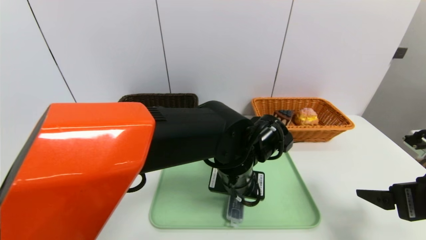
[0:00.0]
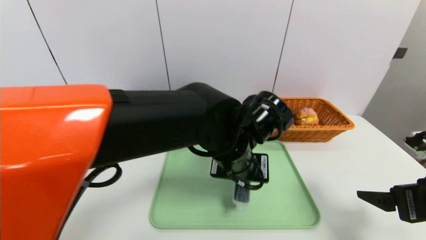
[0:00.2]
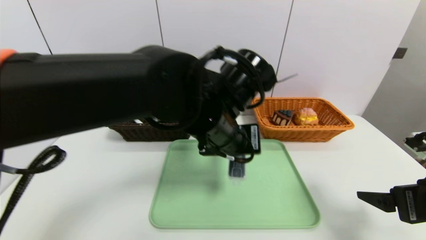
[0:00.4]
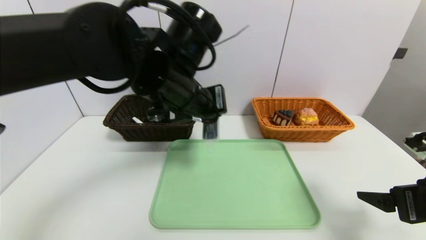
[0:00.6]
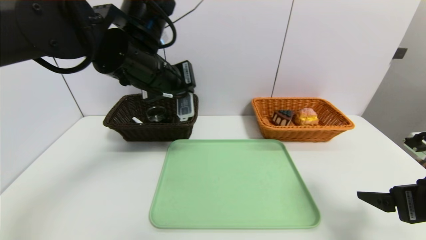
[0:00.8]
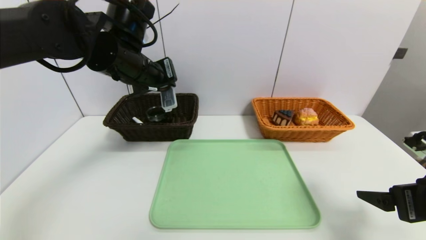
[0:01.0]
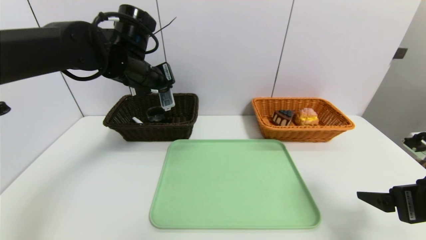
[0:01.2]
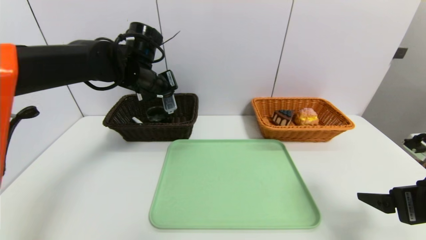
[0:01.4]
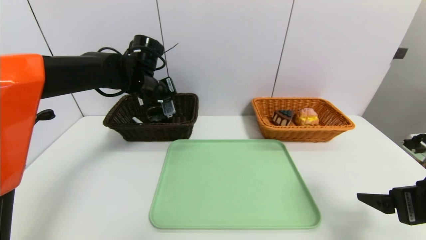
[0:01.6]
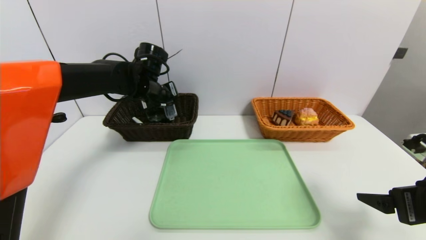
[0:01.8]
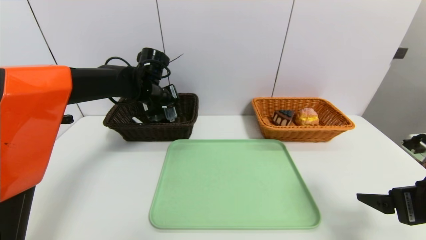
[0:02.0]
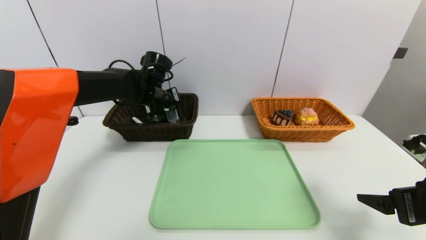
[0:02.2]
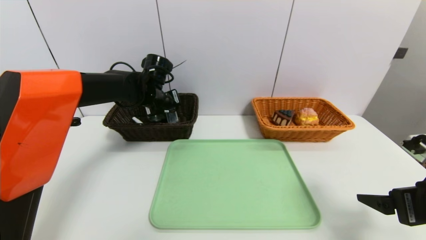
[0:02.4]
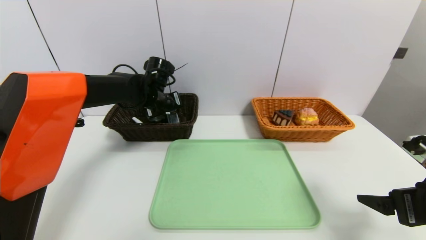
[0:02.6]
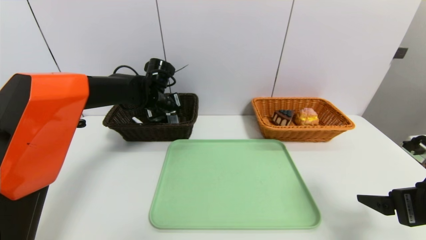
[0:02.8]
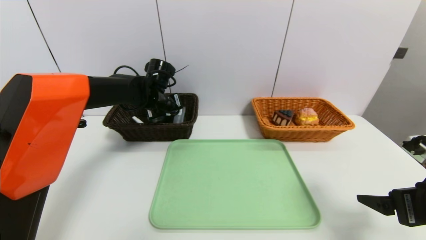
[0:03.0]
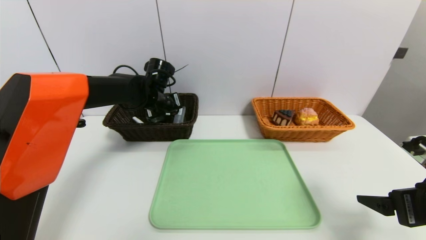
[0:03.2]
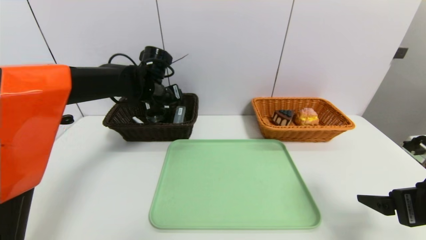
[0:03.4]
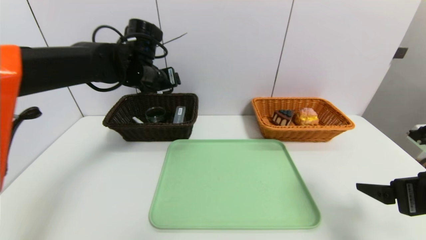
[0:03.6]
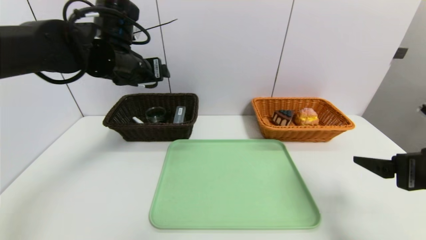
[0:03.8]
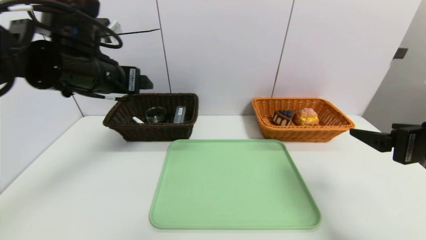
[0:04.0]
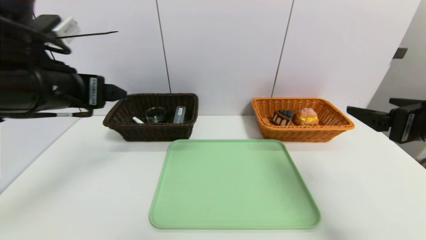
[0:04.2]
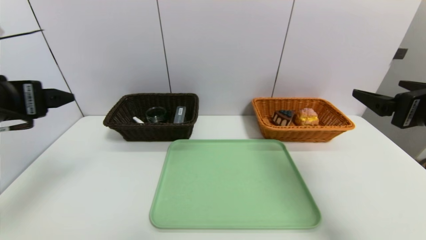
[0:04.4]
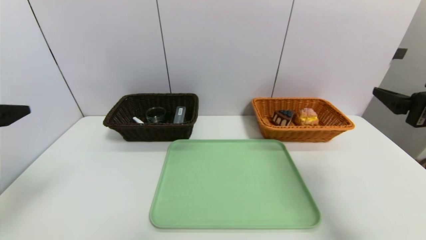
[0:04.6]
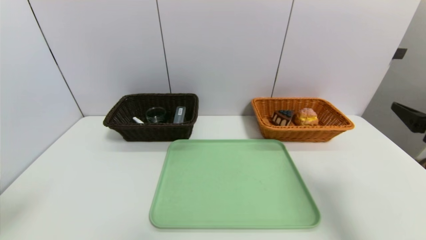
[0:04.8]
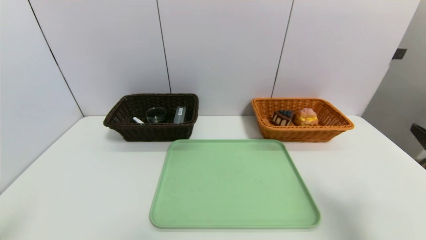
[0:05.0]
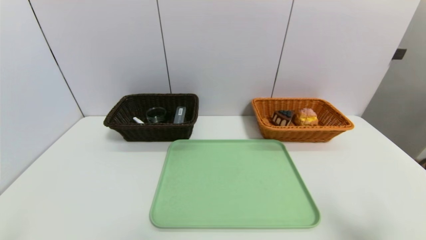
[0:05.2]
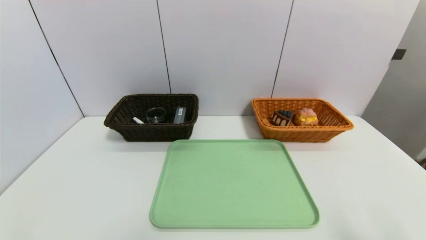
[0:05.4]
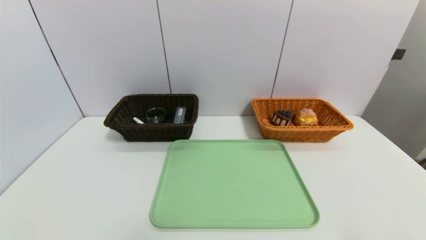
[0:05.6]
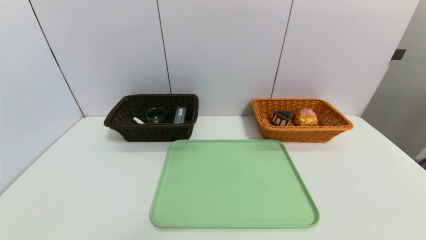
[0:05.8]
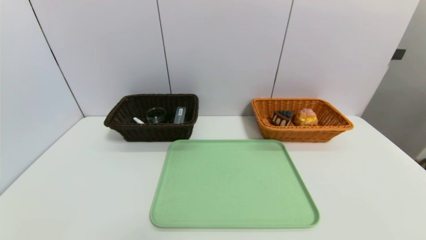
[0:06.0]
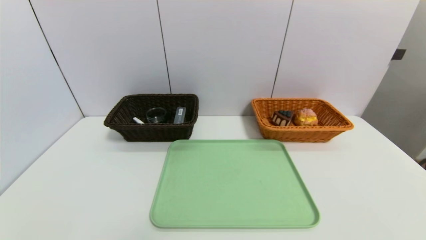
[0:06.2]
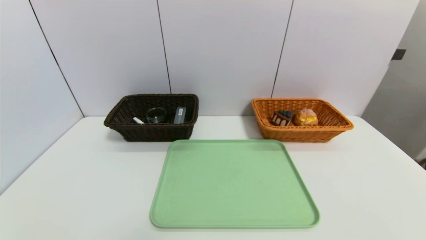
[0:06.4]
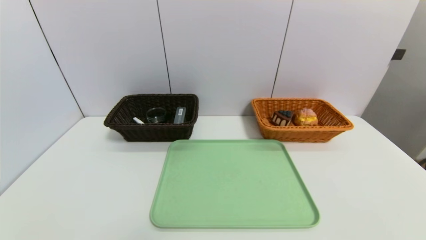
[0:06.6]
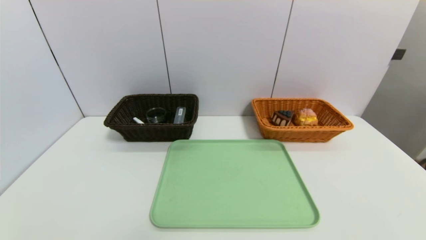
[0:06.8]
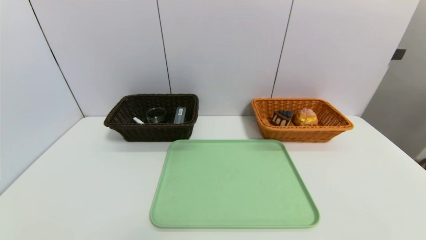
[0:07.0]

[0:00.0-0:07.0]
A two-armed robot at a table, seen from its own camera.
Task of the whole recording: place the food in the right basket with the right gripper, and place the non food items in the left basket with the left gripper.
Step, 0:00.0 to 0:03.4: Grasp the compass and put it in the left basket.
0:00.0 to 0:01.4: The left gripper moves to the left, forward and upward, about 25 cm.
0:01.4 to 0:02.8: The left gripper heads downward, covering approximately 5 cm.
0:02.8 to 0:04.2: The right gripper is displaced upward by approximately 10 cm; the left gripper travels backward and upward by about 25 cm, and opens its fingers.
0:04.2 to 0:05.6: The two grippers go about 25 cm backward and downward.

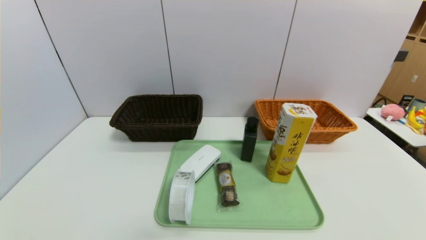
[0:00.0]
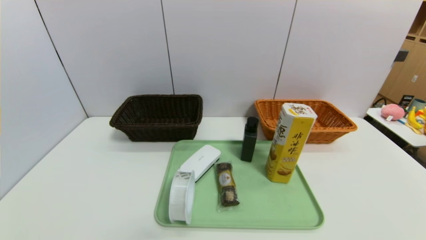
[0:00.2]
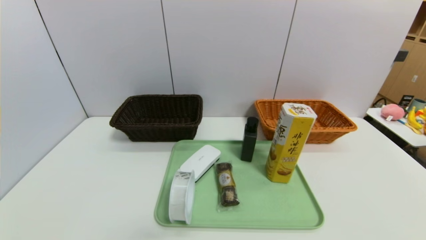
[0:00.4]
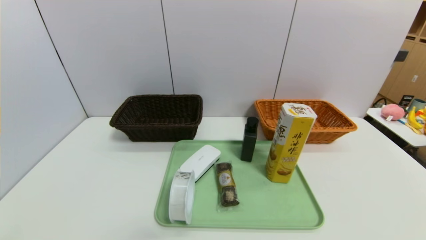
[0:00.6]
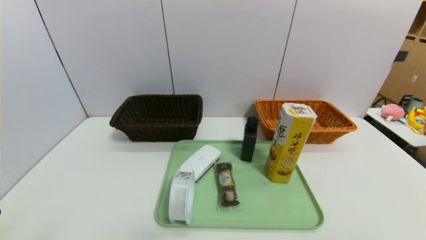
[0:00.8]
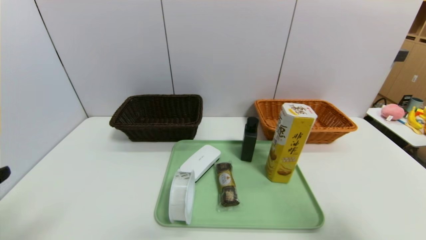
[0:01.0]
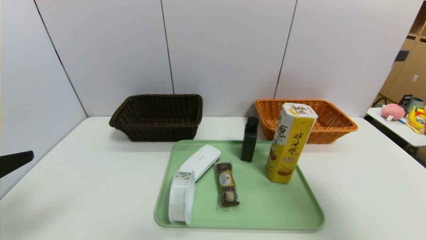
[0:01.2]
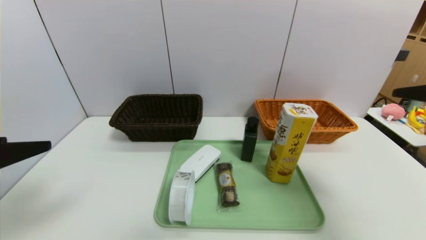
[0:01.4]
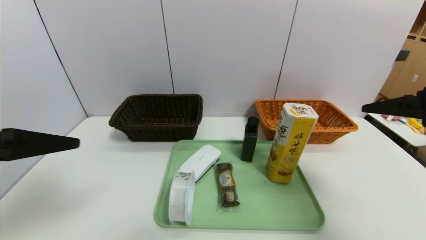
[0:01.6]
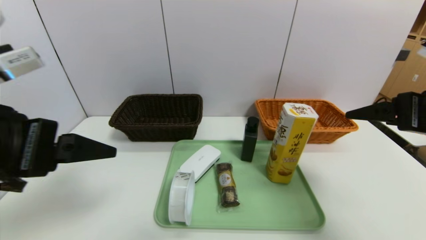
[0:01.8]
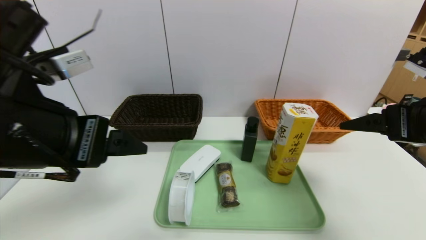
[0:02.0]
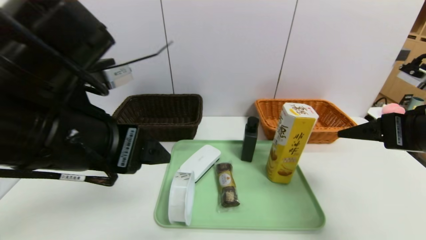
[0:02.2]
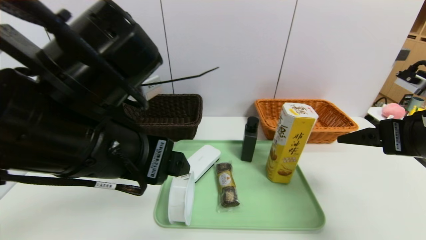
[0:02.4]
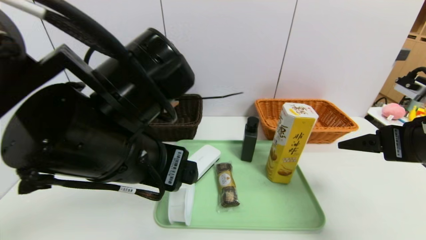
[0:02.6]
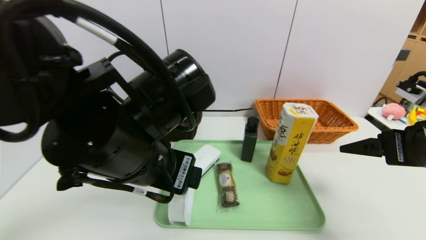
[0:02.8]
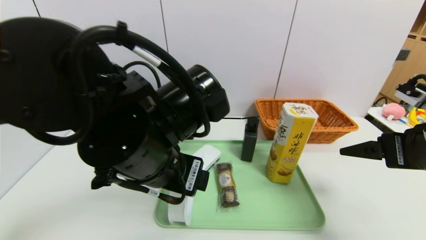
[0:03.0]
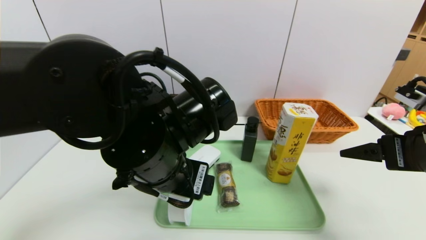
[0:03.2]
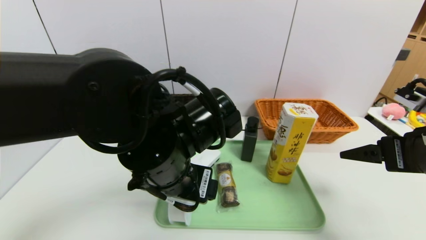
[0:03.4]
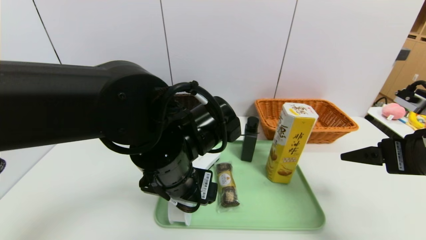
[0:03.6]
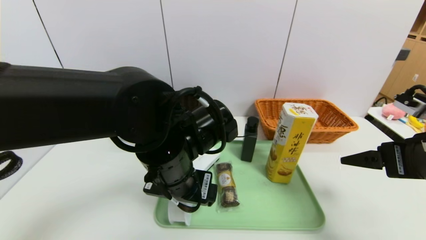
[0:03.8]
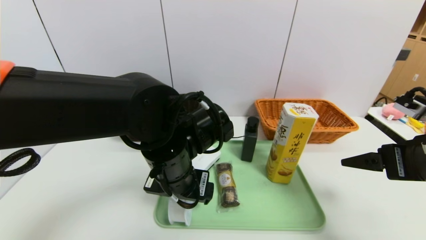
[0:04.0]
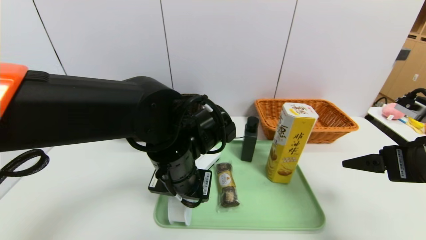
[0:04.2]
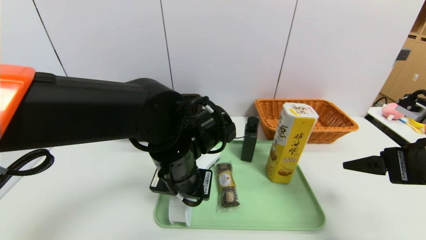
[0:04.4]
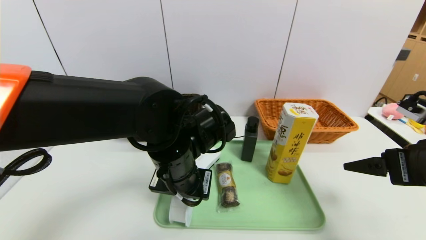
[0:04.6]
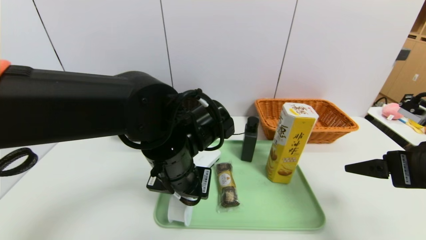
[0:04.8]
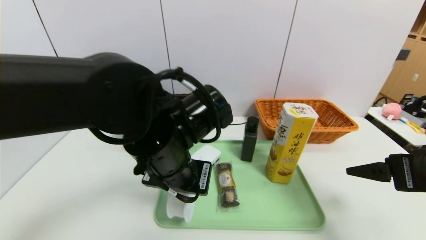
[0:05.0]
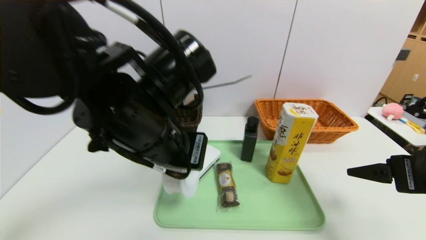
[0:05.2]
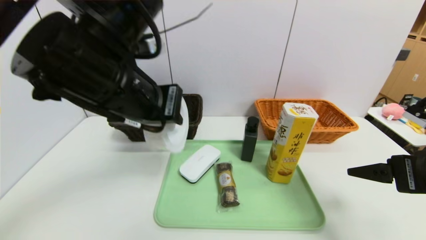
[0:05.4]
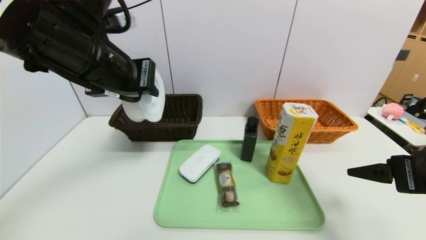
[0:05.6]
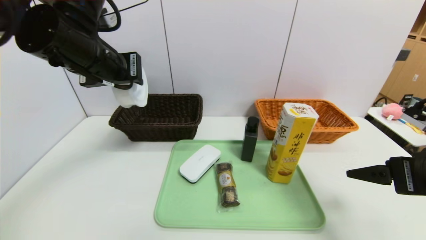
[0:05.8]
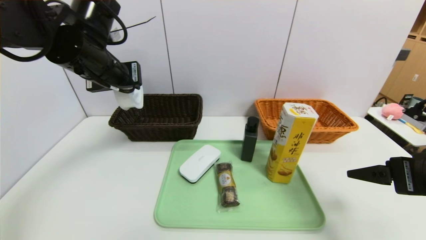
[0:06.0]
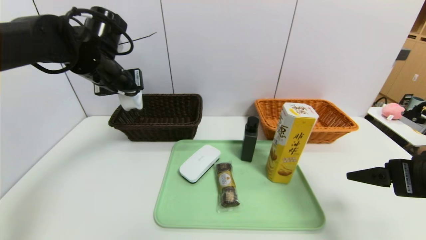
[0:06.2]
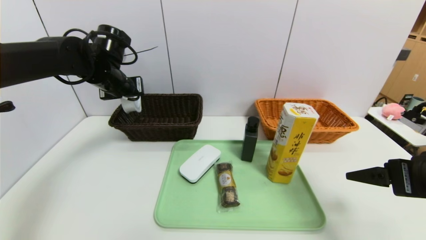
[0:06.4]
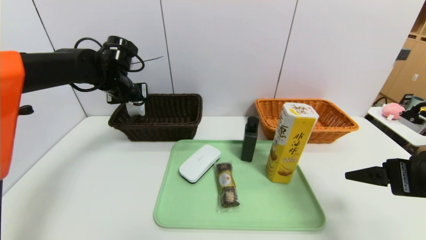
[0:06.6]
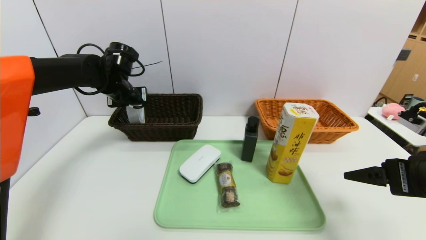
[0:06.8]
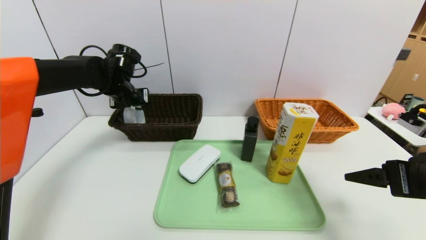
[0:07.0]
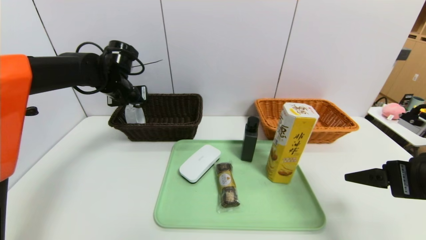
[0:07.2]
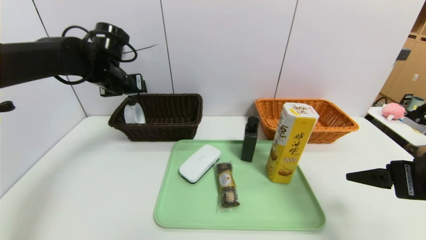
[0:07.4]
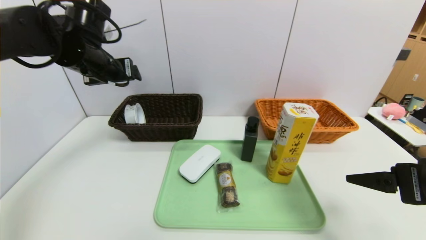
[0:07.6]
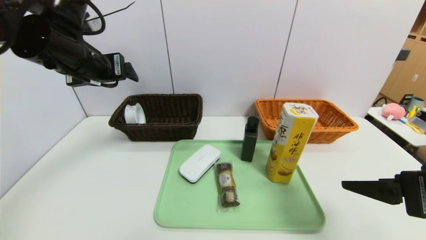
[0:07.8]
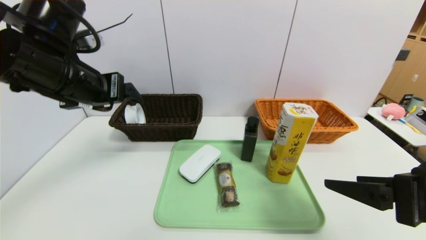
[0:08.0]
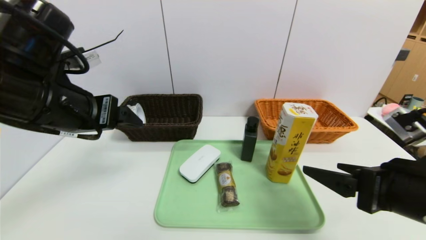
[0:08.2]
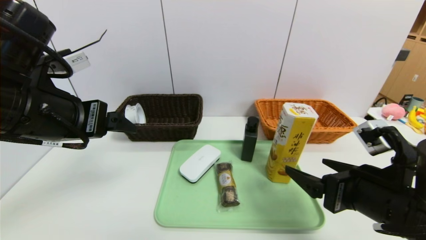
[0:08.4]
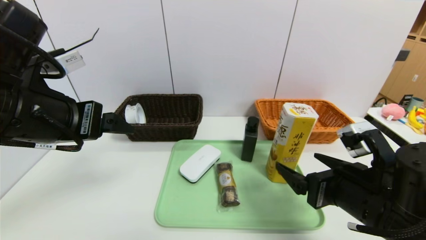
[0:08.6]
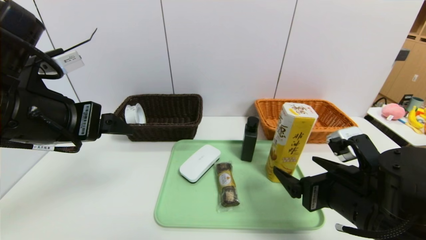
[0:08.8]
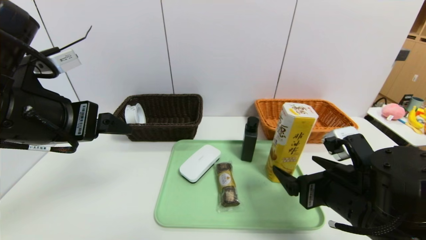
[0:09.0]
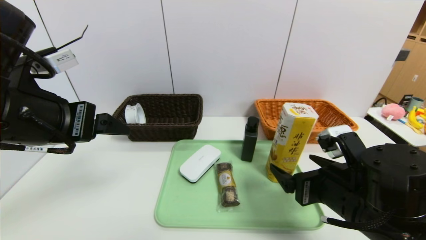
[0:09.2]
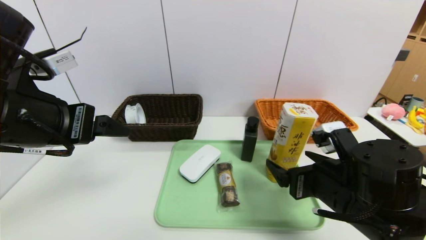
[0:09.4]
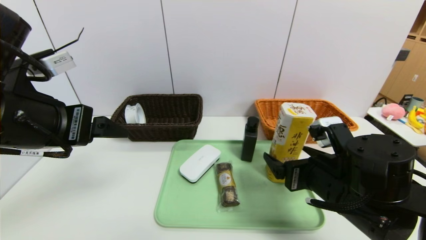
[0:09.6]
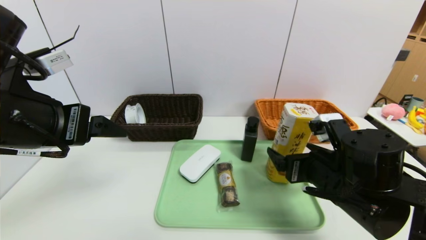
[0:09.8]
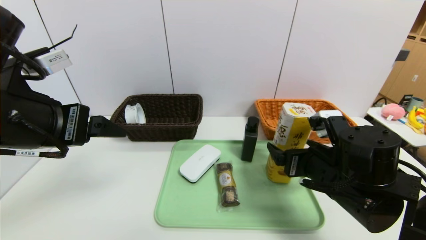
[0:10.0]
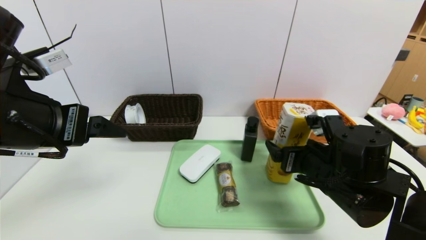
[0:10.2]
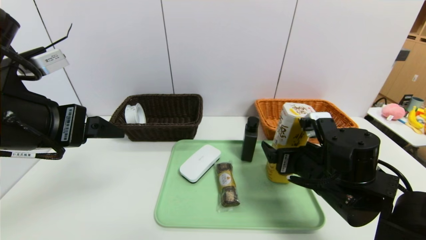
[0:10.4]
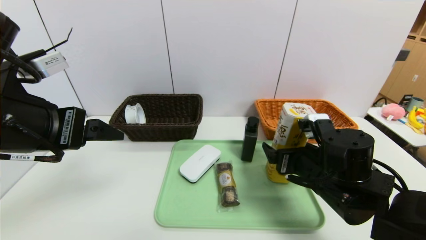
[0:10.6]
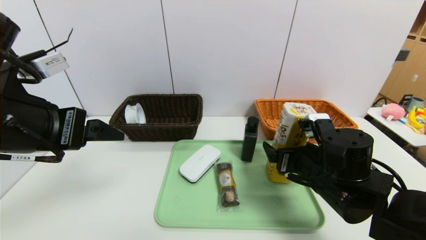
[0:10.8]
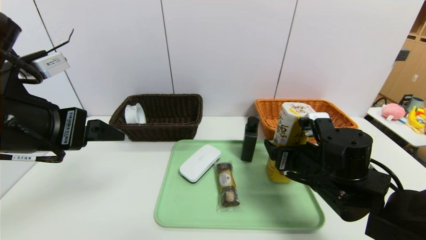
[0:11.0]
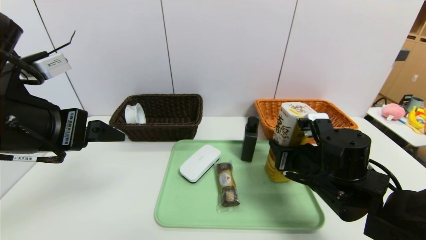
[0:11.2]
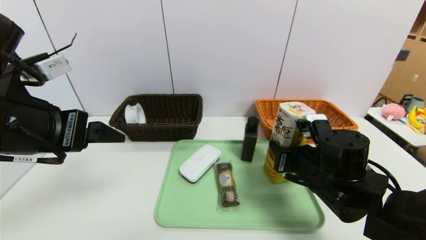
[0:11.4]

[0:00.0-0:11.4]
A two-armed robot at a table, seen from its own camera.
Task of the whole recording: place the food in the right basket with the right gripper, and place the non food items in the left basket with the left gripper.
Step, 0:00.0 to 0:07.4: Grasp the tape and put it in the left basket.
0:00.0 to 0:01.4: Both grippers travel together upward and forward, about 25 cm.
0:01.4 to 0:02.8: The left gripper moves to the right and forward, approximately 20 cm. The right gripper is displaced downward by some 5 cm.
0:02.8 to 0:04.2: The left gripper moves downward and forward, roughly 10 cm, and closes its fingers.
0:04.2 to 0:05.6: The left gripper heads upward and to the left, covering about 20 cm, and closes its fingers.
0:05.6 to 0:07.2: The left gripper shifts some 20 cm forward and downward, and opens.
0:07.2 to 0:08.6: The right gripper shifts some 10 cm to the left and downward. The left gripper heads backward, covering about 25 cm, and opens its fingers.
0:08.6 to 0:10.0: The right gripper travels forward by roughly 5 cm.
0:10.0 to 0:11.4: The right gripper closes.
